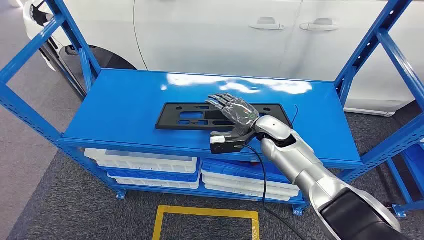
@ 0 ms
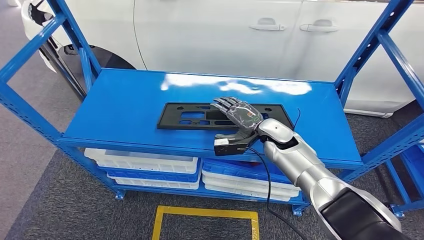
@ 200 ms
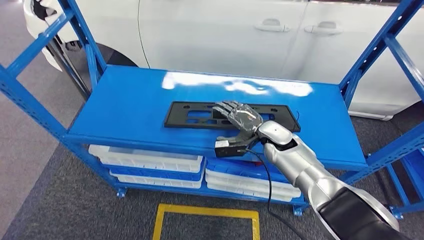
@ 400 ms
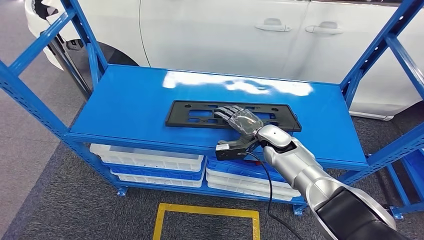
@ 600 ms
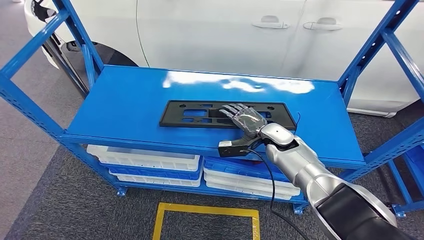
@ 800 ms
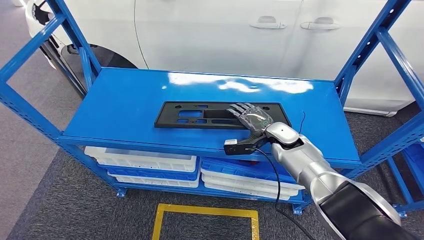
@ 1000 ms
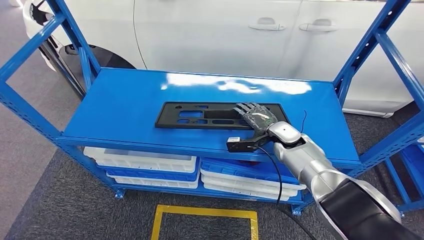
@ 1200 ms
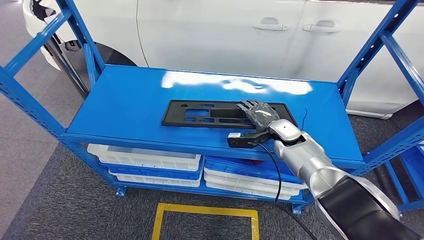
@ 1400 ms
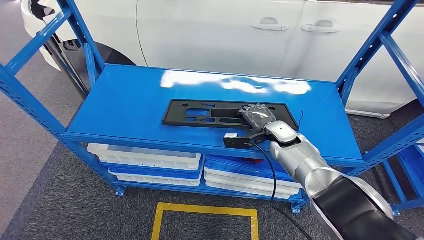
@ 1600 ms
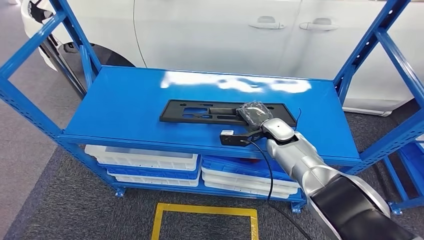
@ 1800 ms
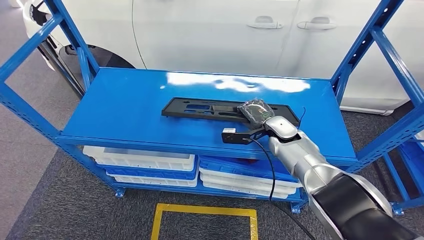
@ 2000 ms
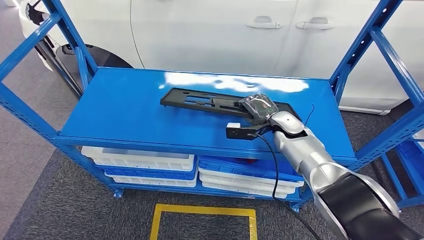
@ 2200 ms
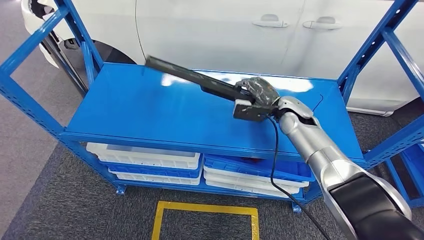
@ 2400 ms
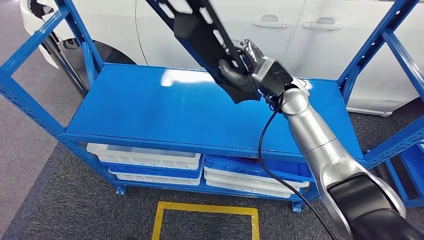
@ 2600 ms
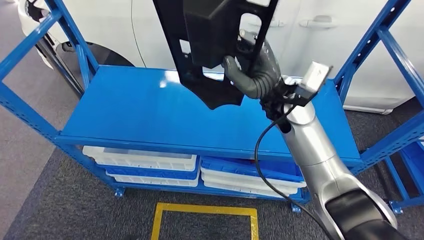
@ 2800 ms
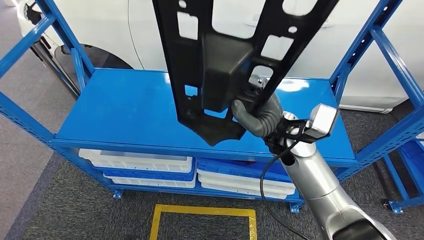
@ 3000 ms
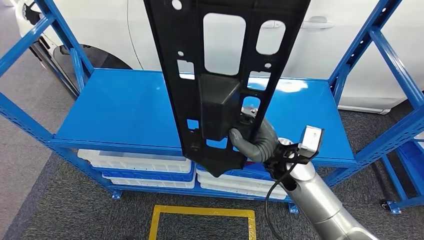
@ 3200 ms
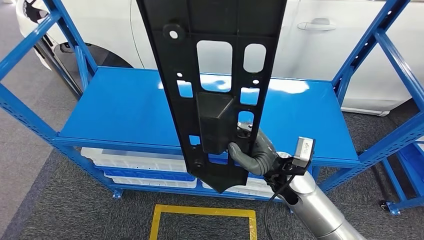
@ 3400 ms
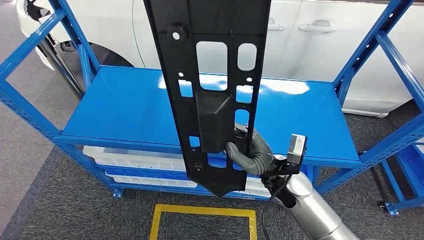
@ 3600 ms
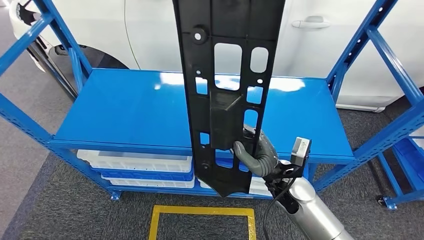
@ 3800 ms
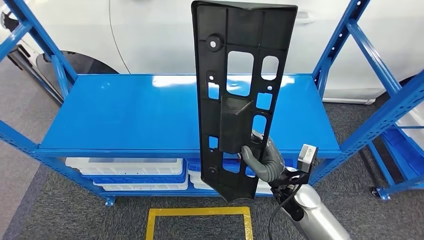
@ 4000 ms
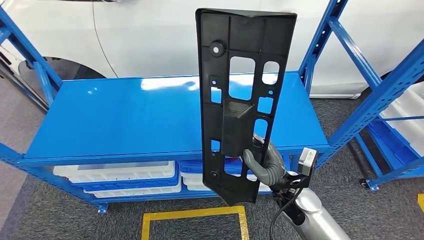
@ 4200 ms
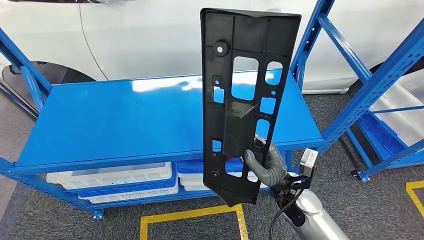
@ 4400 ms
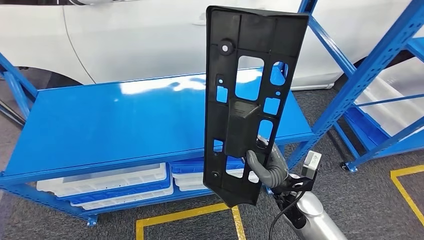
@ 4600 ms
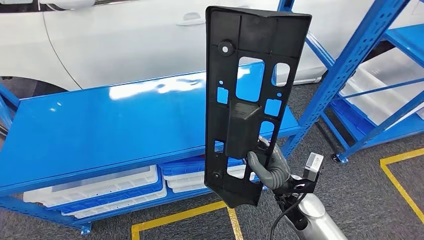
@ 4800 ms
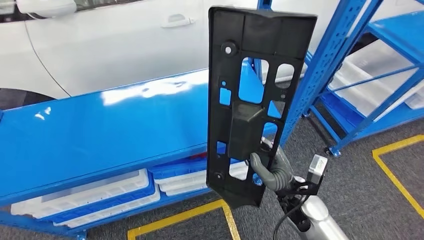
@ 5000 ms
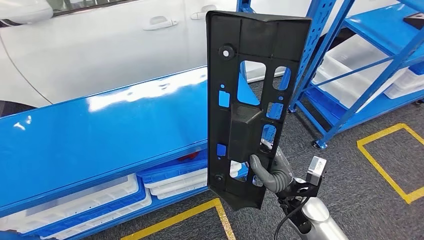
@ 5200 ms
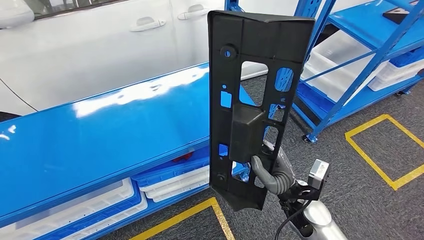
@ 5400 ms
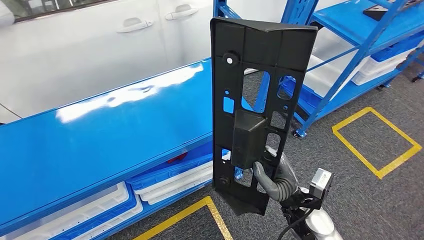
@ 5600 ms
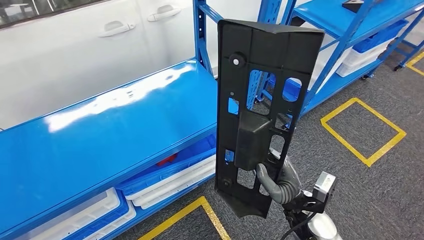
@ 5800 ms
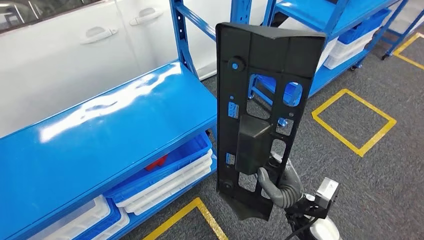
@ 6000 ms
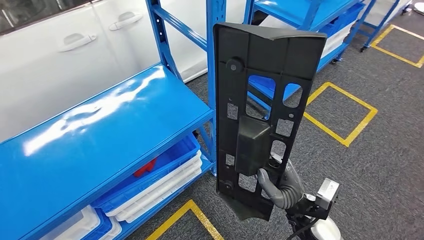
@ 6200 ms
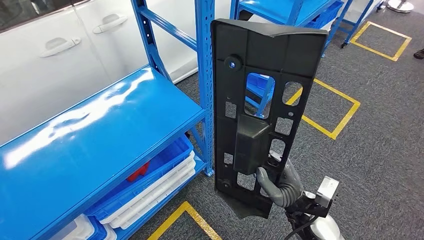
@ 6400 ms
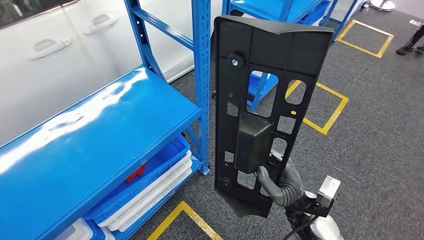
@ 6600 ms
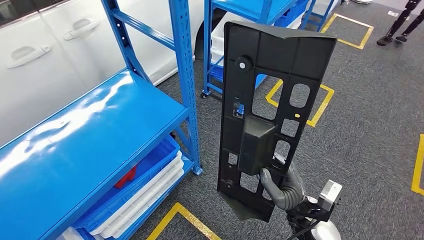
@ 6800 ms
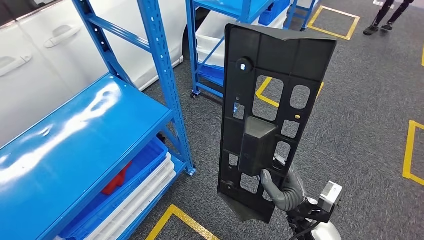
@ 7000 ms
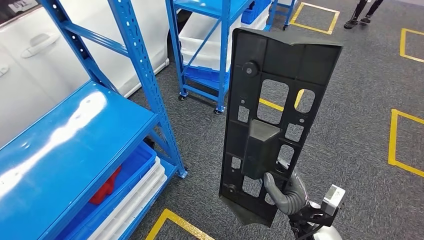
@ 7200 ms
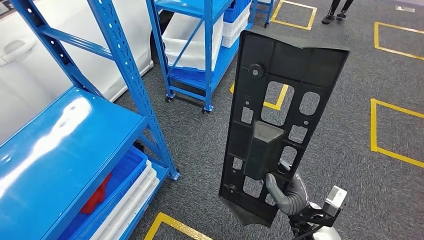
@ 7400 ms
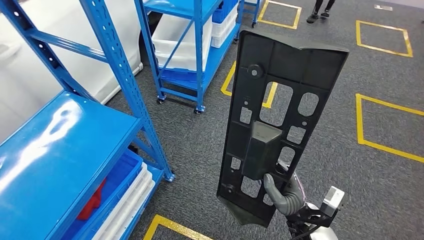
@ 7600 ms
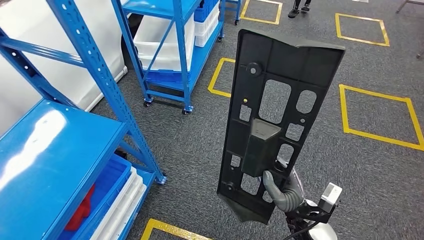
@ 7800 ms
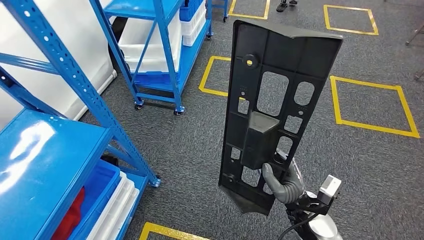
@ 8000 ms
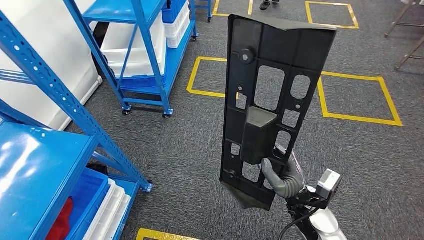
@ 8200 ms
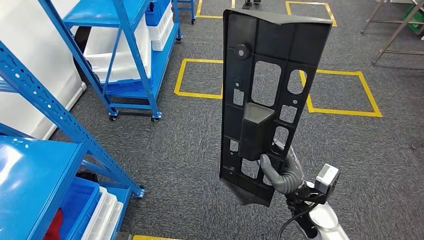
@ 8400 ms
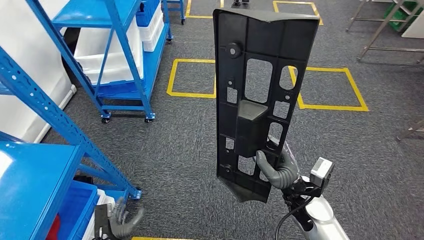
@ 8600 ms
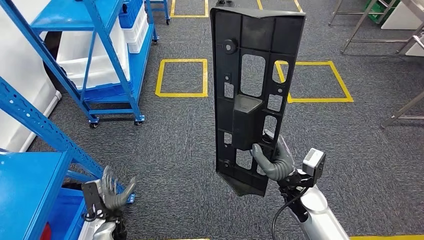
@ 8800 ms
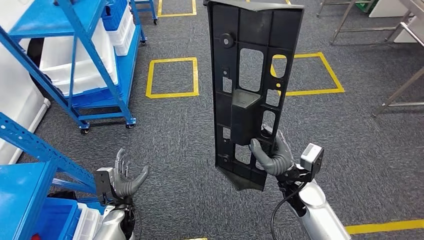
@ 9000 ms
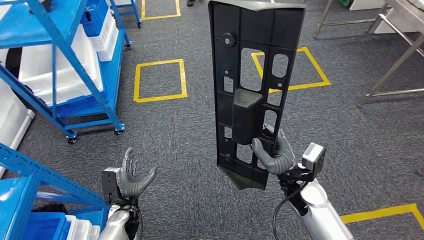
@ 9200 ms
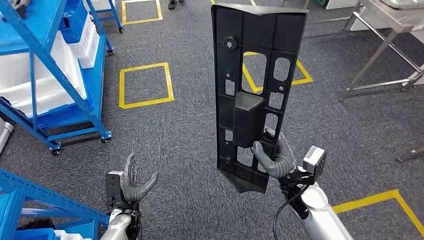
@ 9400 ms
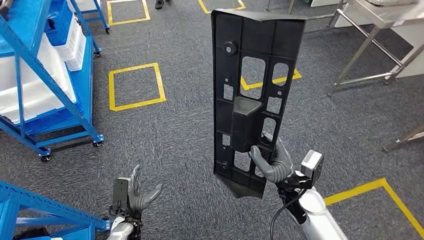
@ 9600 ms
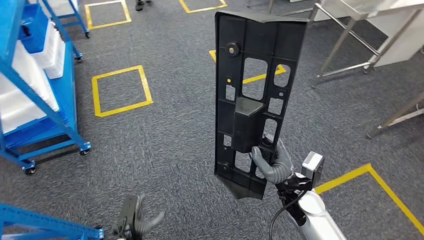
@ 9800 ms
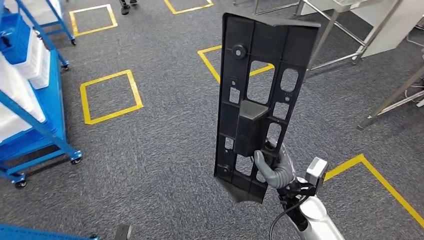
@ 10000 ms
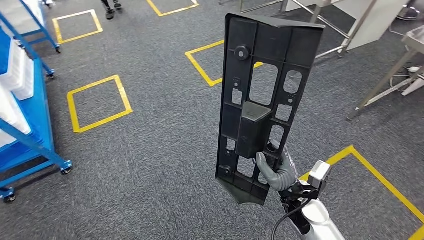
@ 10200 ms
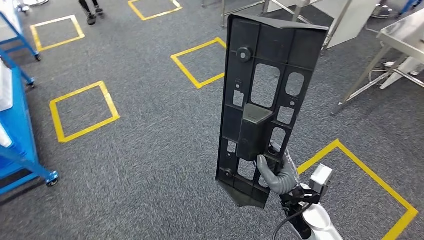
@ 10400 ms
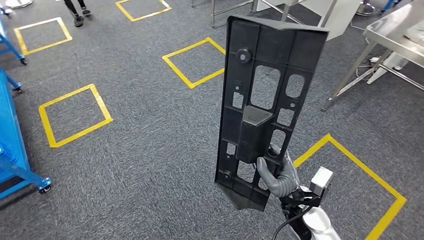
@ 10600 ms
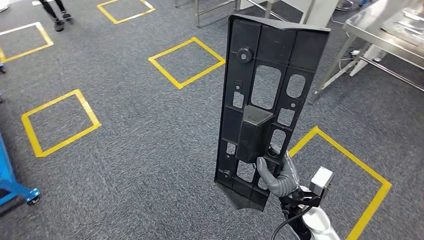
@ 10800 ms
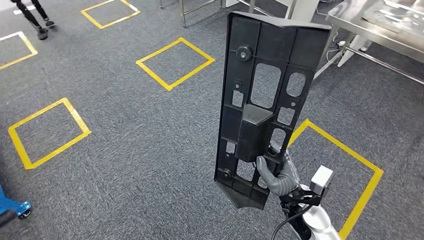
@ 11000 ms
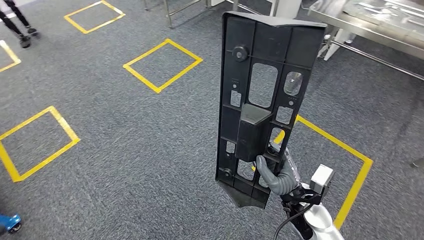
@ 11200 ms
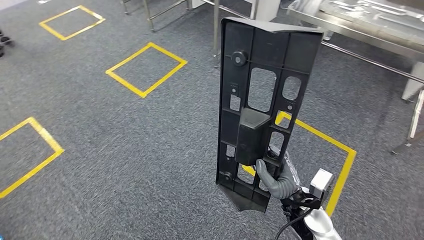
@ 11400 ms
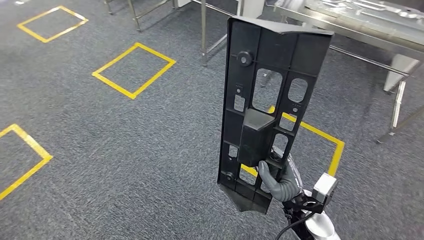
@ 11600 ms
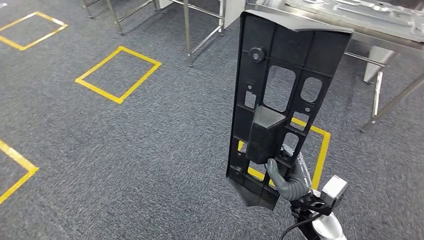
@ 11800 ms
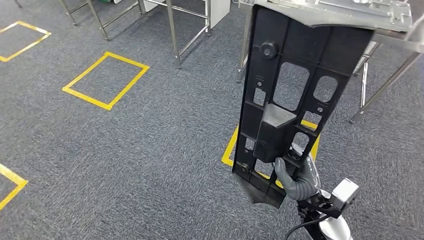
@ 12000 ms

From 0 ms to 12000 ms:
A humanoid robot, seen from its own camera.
Step, from 0 ms to 3800 ms: Pick up the large material from the shelf.

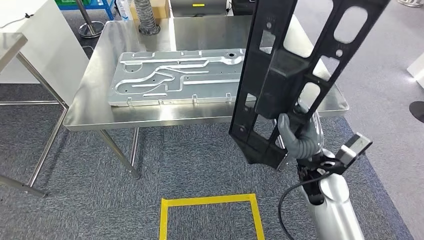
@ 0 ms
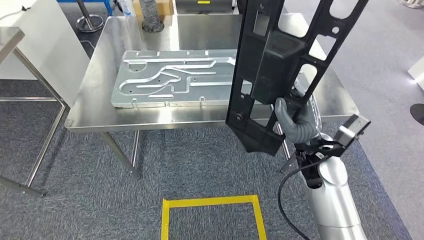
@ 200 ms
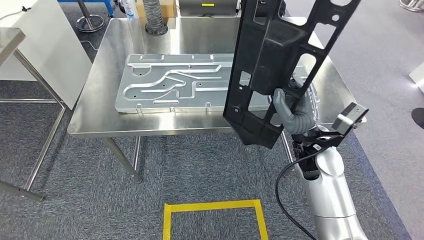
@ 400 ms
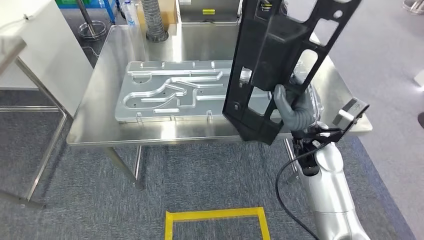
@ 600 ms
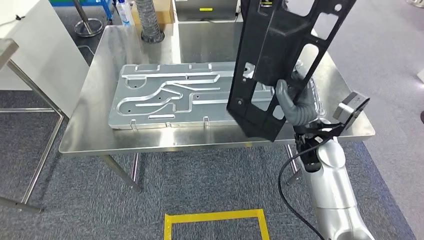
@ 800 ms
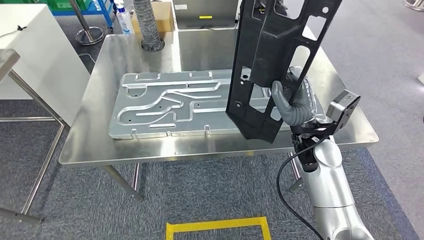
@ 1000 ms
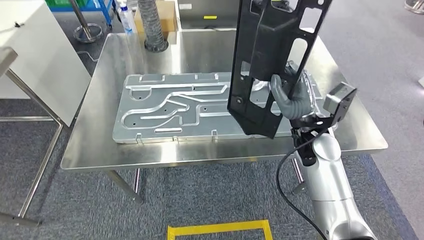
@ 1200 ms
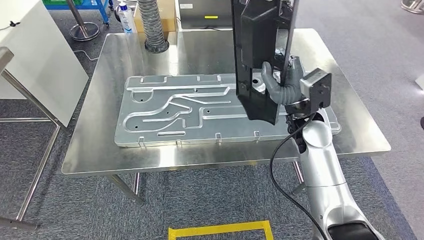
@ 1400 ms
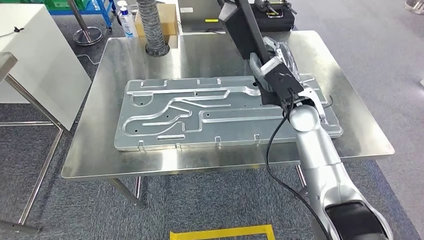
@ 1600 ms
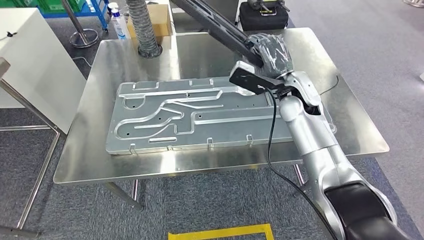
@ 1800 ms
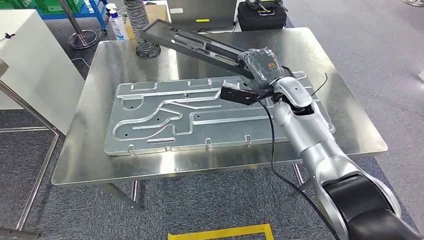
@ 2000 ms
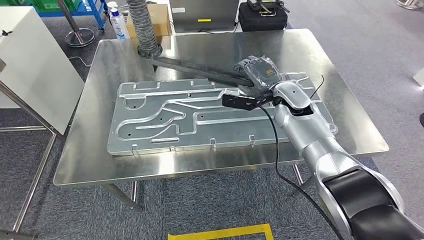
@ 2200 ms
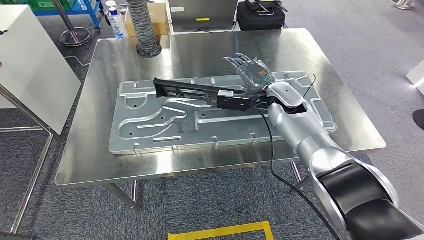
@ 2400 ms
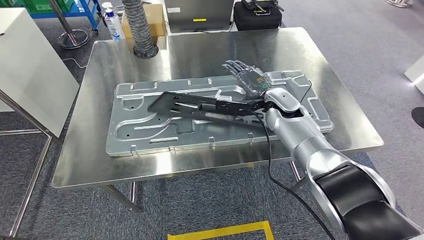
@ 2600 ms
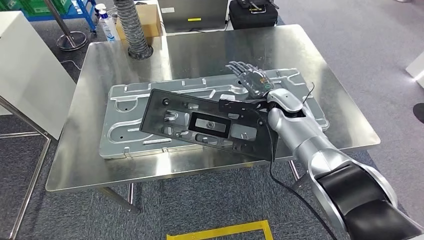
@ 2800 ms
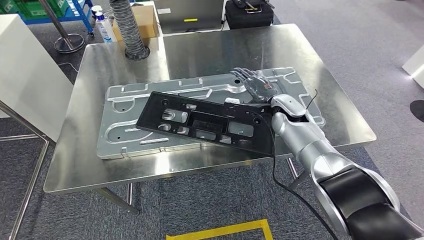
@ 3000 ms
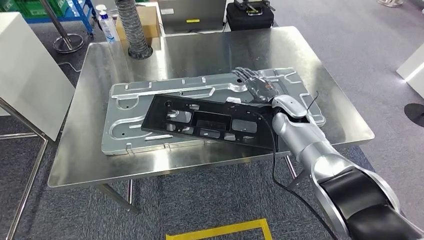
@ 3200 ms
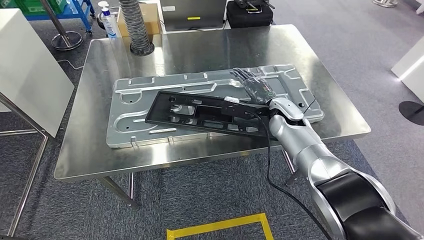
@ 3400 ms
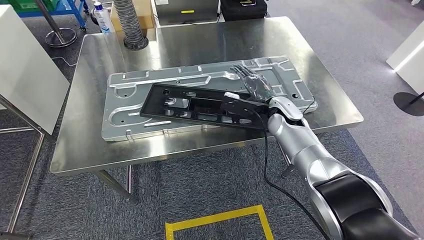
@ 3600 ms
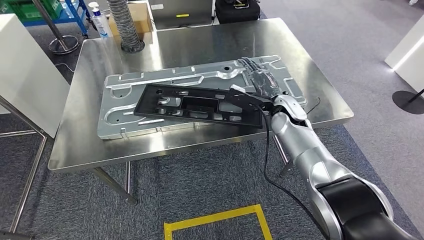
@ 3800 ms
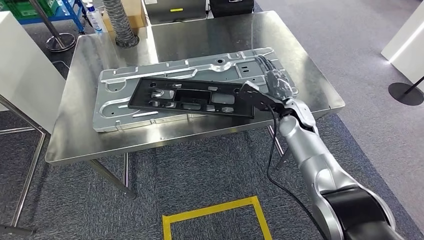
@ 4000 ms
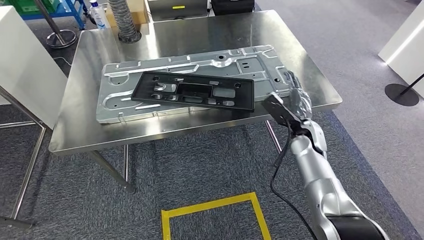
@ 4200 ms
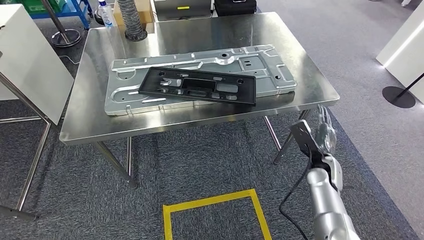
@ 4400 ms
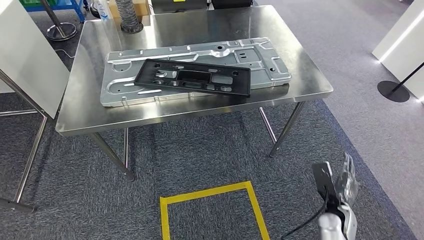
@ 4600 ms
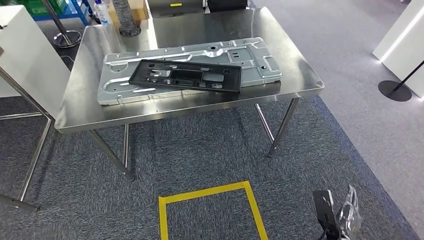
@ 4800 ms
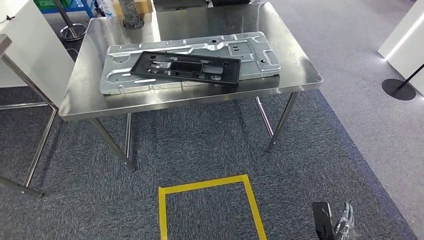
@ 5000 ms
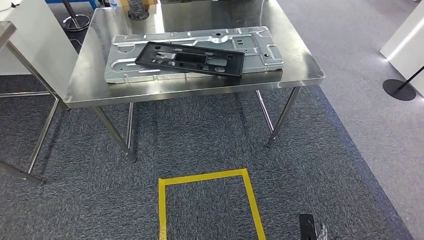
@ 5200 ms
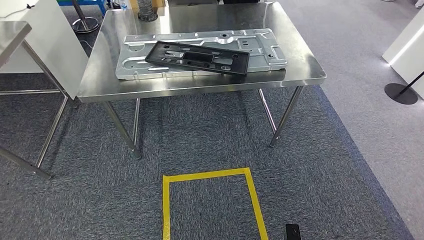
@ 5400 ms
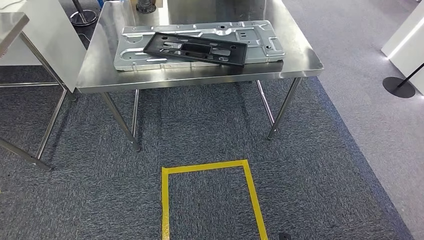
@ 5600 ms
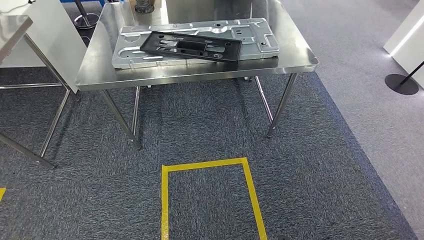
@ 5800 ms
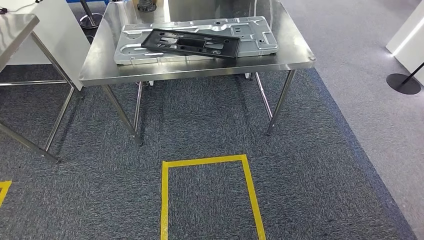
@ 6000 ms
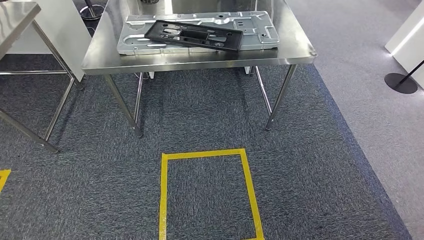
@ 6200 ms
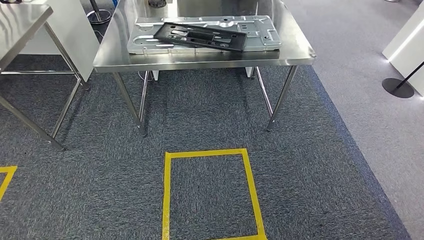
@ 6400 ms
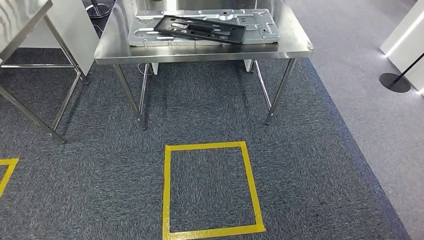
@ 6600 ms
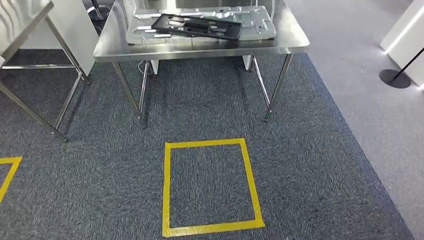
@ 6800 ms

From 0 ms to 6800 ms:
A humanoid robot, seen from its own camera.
Step, from 1200 ms to 3600 ms: Insert the large material into the corresponding slot on the workbench.
Step, from 4800 ms to 6600 ms: Move to the initial position of the shelf.
